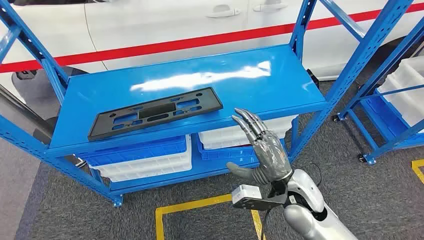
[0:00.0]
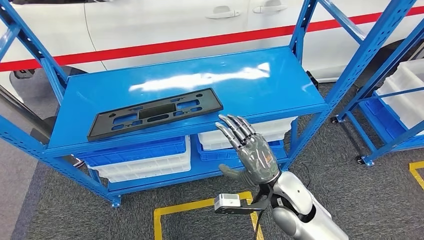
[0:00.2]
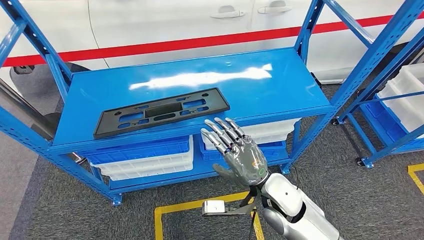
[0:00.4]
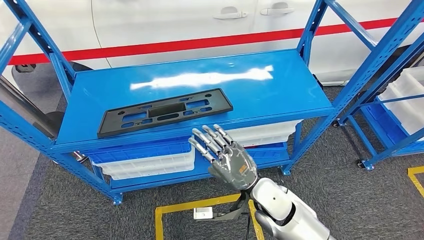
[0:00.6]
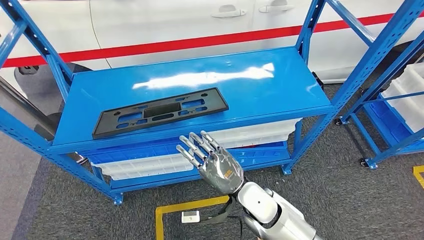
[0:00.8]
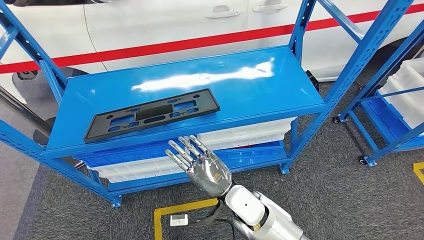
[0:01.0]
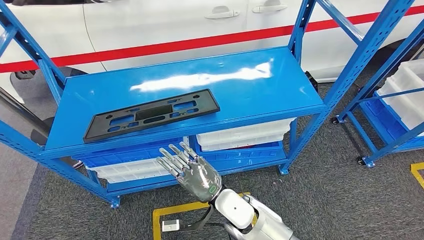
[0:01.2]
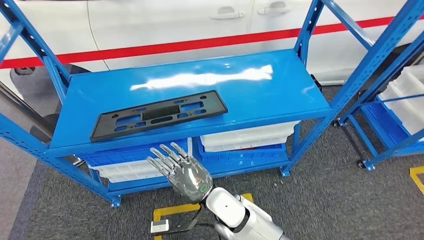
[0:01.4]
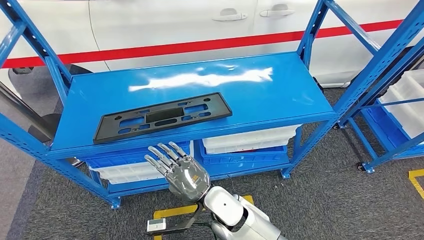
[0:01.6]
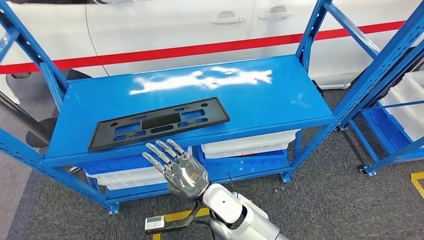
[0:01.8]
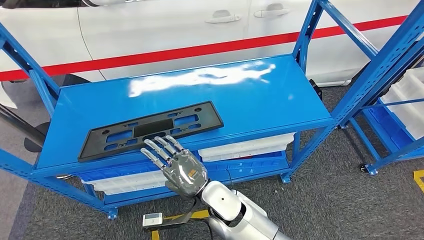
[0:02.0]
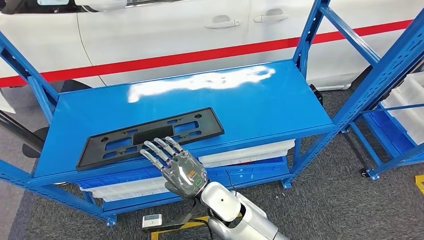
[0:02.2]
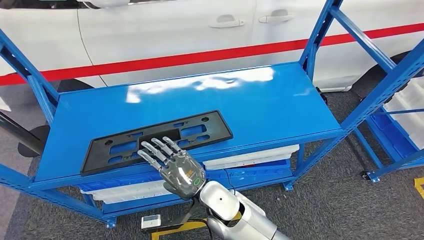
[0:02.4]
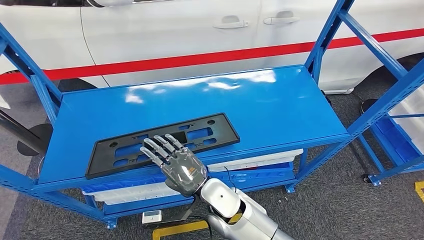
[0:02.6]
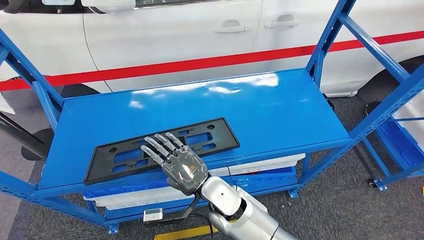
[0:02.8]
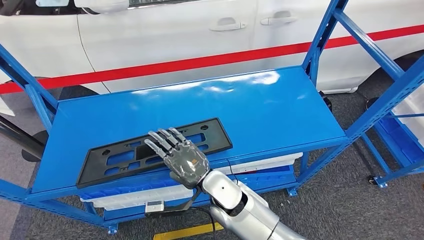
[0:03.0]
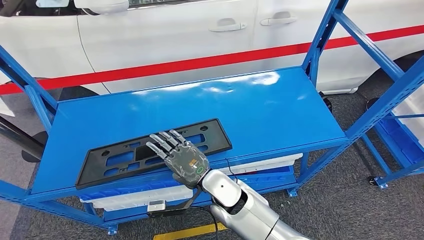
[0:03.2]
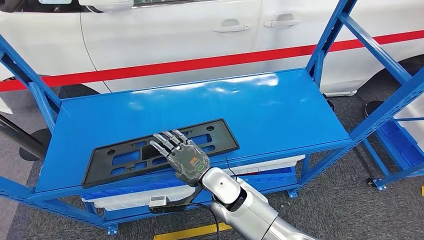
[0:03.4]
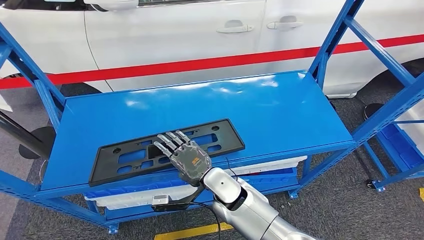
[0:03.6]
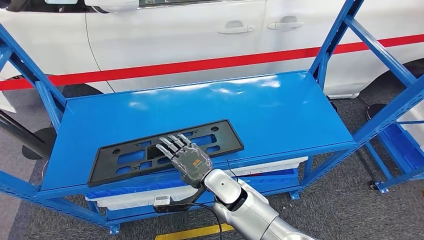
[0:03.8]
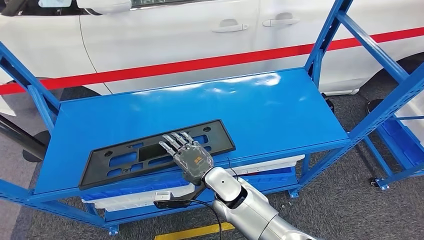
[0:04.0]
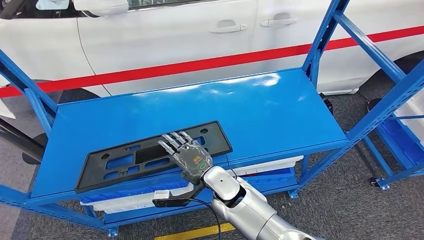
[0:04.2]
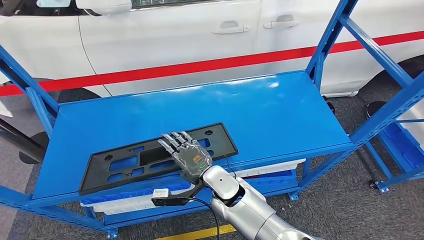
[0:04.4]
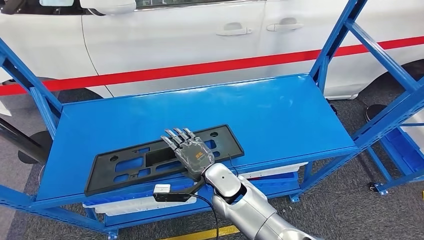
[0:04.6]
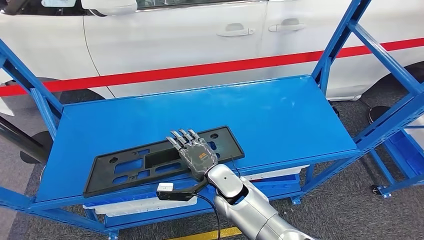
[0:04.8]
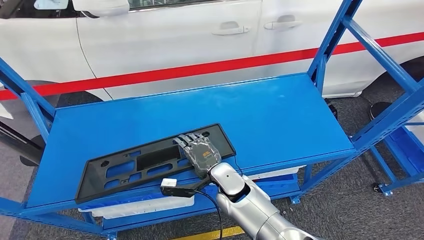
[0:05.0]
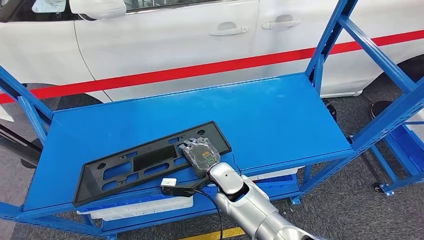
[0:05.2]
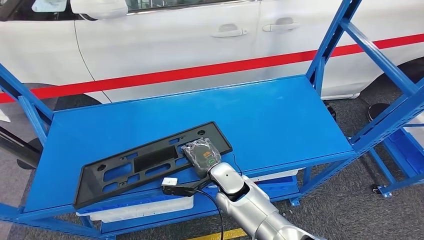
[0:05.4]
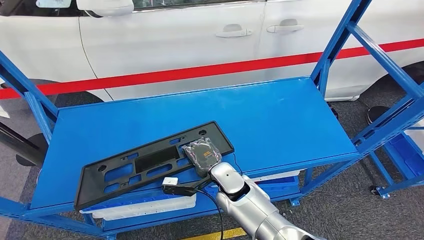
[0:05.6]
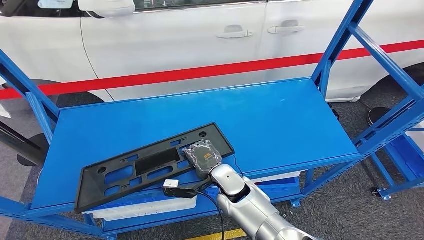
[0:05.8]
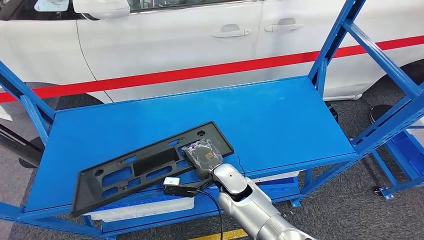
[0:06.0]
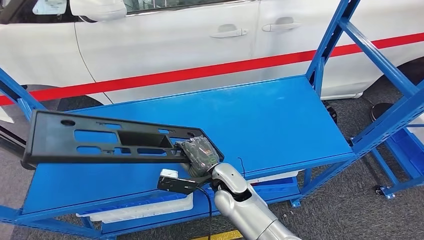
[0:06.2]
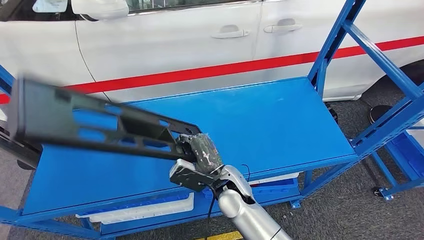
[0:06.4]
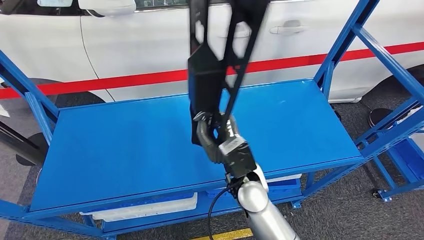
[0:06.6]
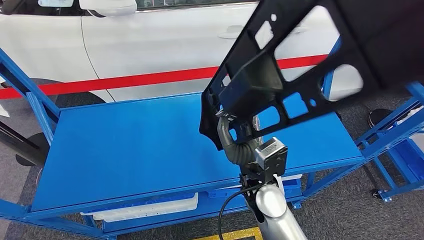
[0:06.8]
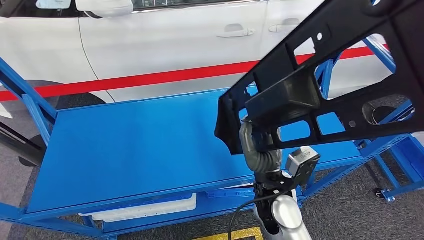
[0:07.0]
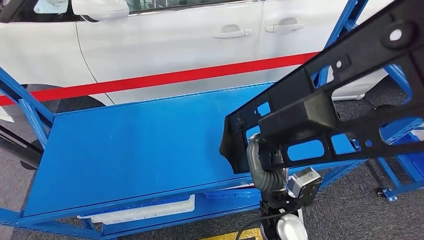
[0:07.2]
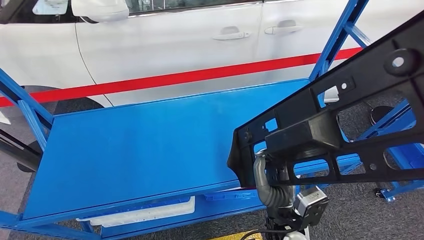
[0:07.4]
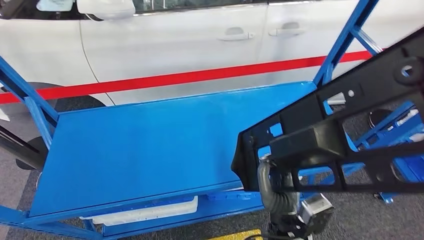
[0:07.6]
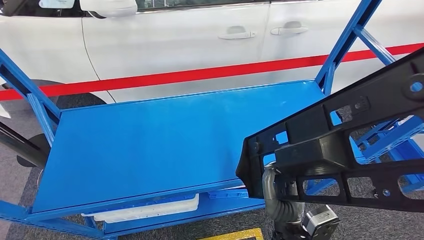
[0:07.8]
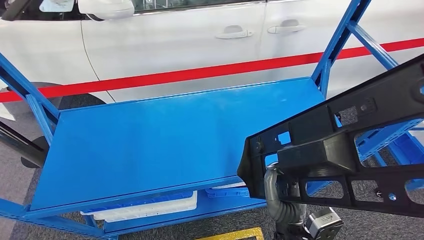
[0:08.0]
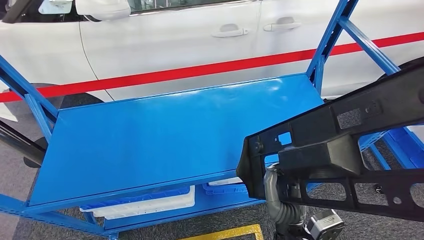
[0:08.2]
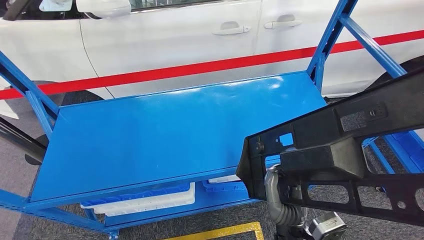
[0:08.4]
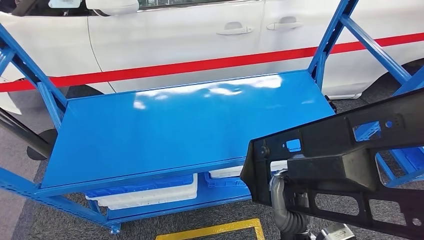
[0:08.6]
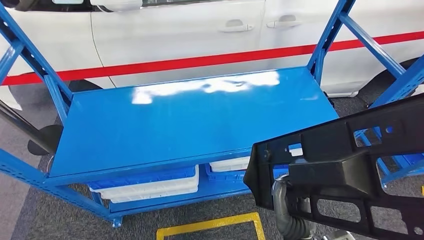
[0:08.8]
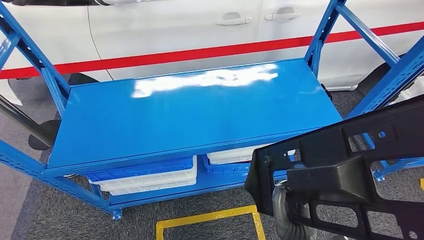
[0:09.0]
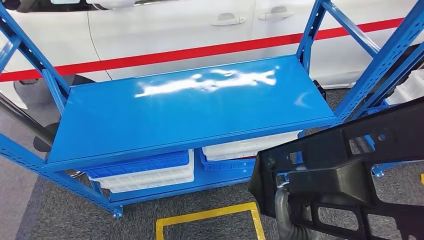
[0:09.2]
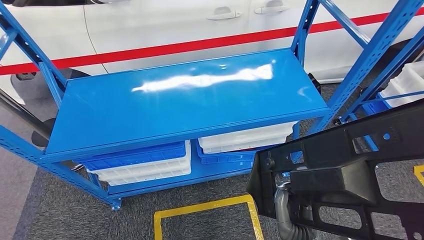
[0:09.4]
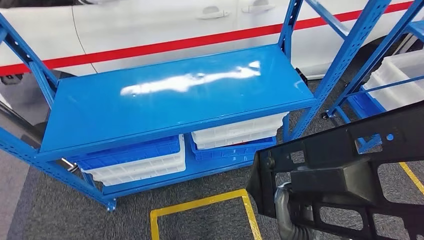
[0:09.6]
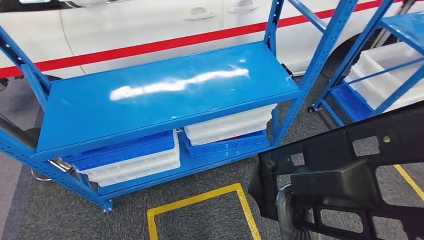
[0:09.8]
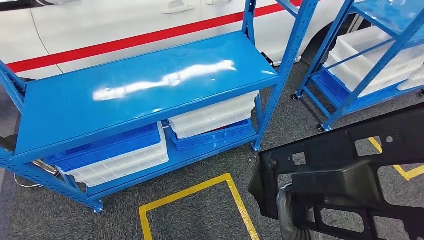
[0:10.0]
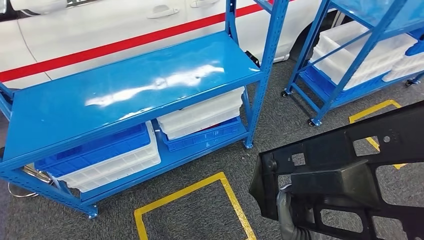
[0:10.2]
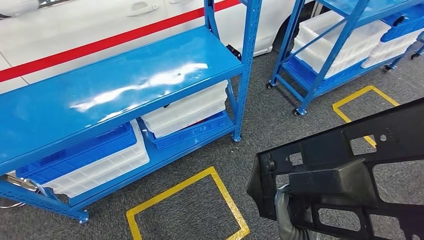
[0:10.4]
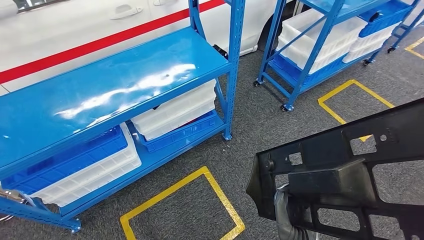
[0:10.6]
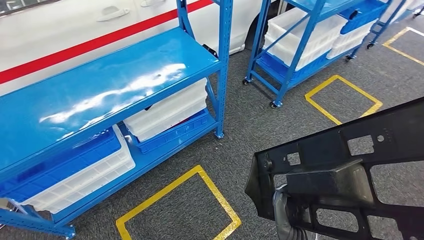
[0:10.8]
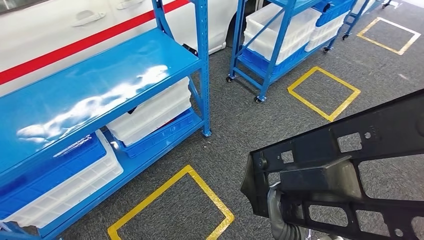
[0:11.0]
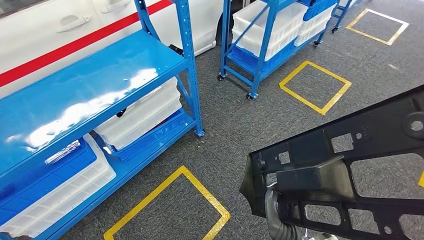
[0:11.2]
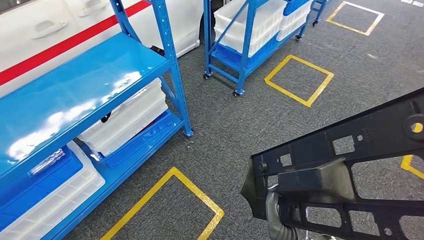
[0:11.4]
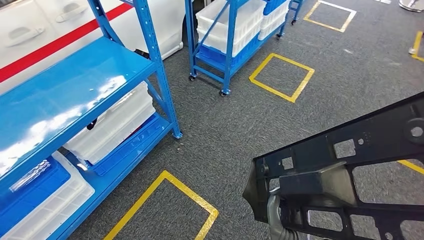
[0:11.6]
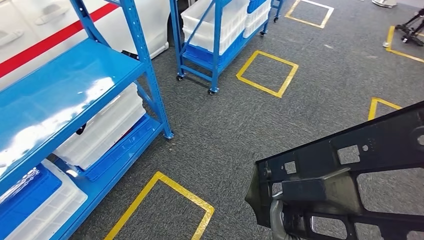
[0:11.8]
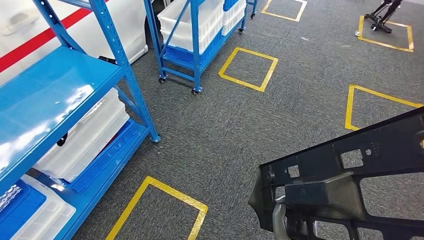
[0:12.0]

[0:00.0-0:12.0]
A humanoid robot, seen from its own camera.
Step, 0:00.0 to 0:10.4: Pick up the large material from the shelf.

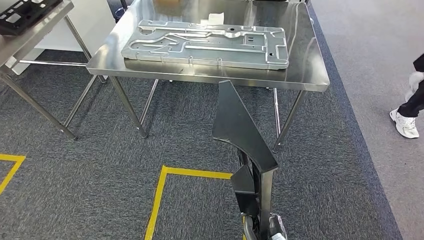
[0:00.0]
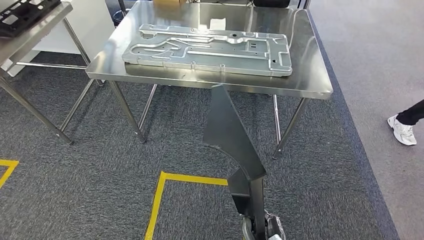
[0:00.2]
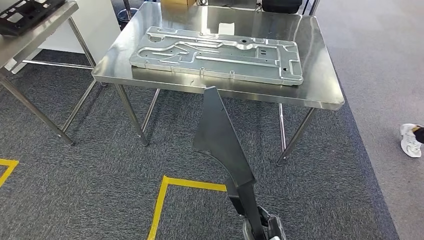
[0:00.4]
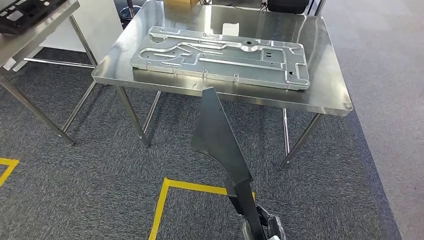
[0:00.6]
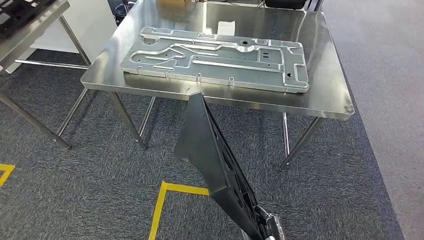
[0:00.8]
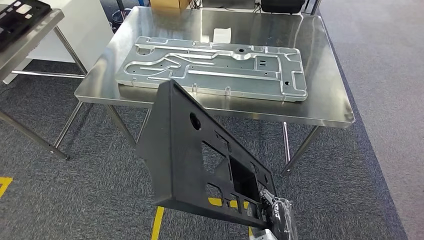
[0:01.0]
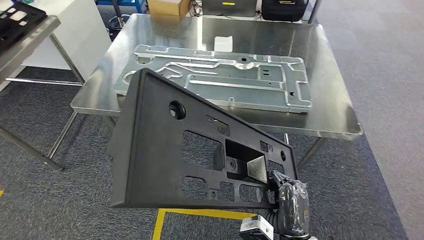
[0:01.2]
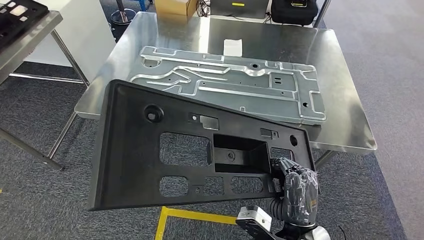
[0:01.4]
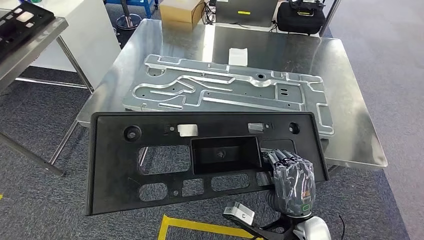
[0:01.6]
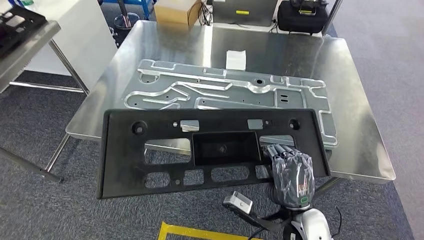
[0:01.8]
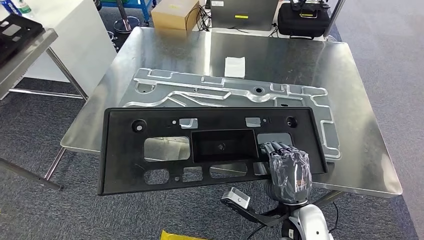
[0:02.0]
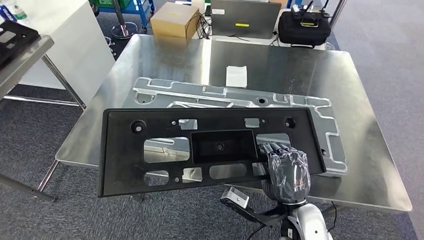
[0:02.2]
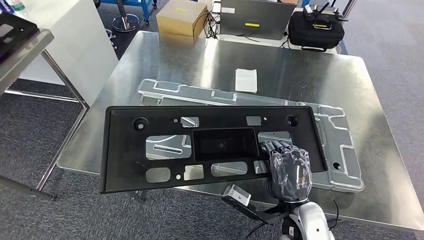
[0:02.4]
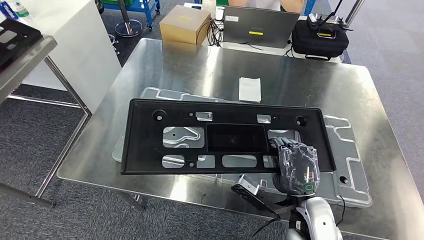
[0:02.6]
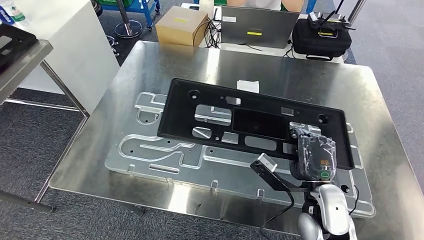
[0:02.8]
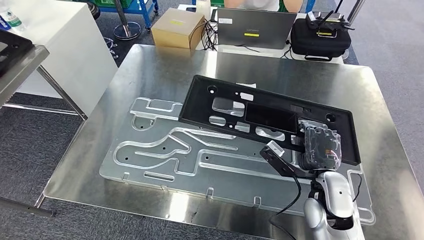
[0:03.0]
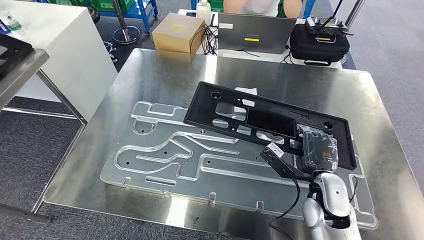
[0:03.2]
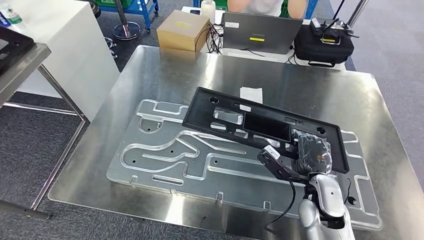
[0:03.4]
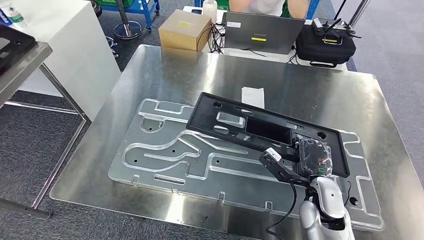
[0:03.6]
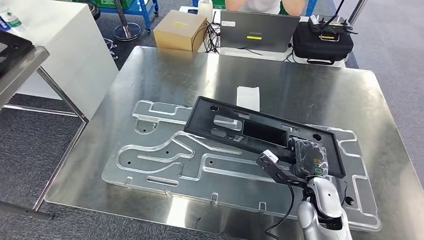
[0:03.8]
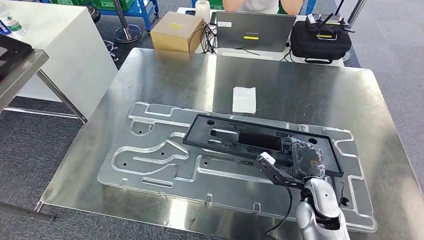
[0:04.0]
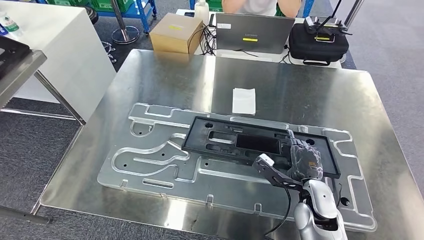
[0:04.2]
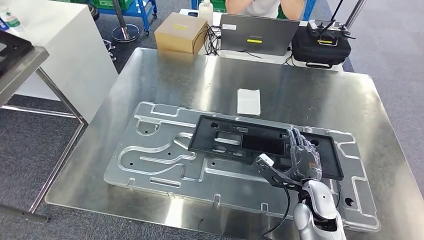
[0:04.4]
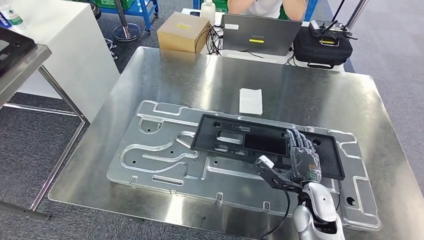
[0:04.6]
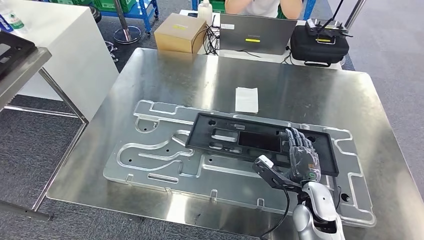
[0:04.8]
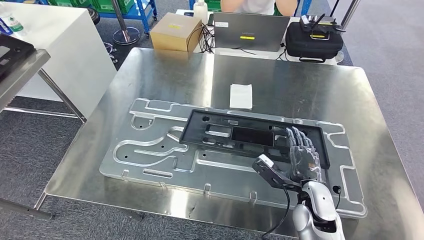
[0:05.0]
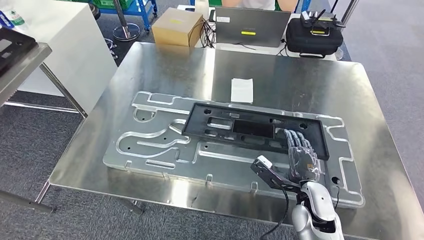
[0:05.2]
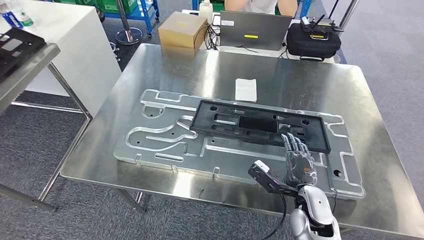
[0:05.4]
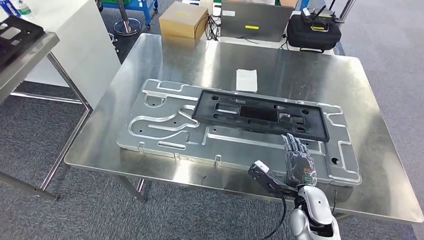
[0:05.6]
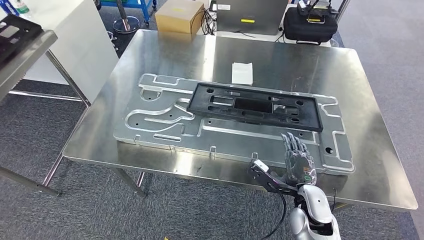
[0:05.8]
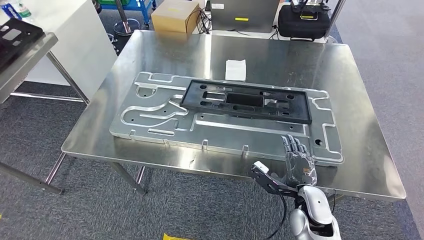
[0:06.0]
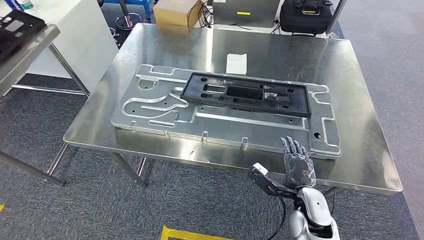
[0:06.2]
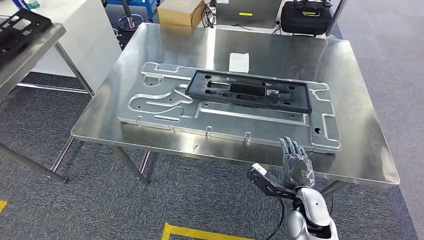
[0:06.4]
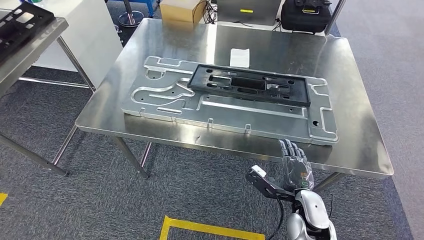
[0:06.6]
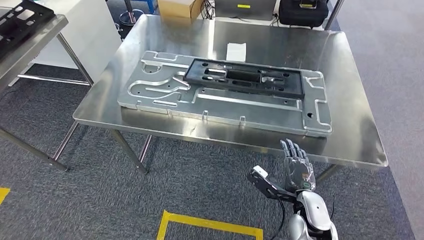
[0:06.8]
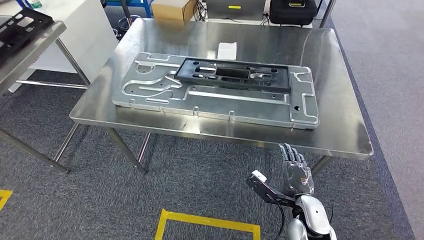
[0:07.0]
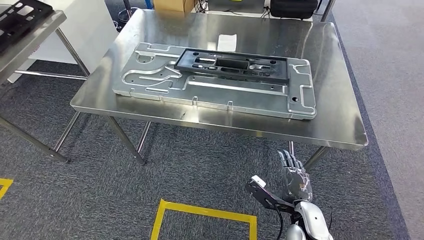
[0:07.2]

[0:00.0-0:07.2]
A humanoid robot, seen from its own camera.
Step, 0:00.0 to 0:02.2: Move the large material to the workbench.
